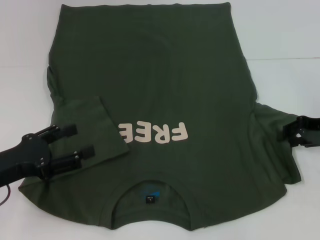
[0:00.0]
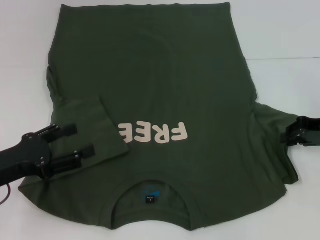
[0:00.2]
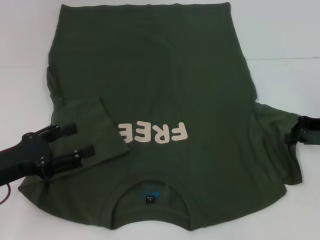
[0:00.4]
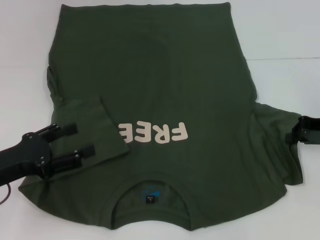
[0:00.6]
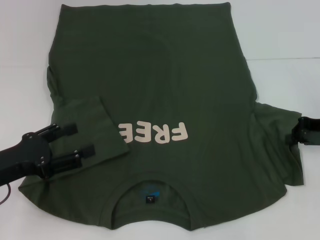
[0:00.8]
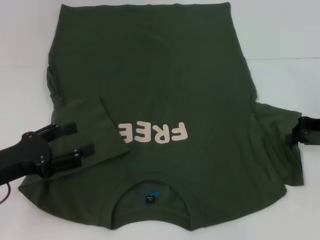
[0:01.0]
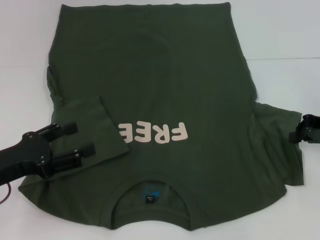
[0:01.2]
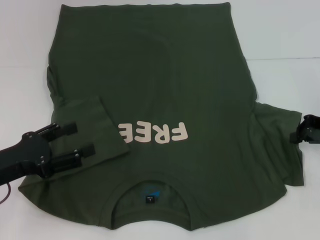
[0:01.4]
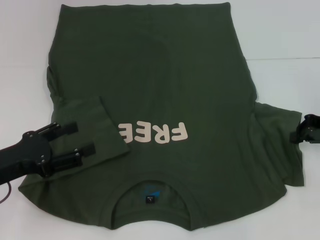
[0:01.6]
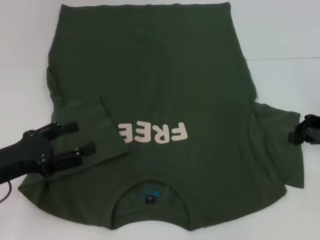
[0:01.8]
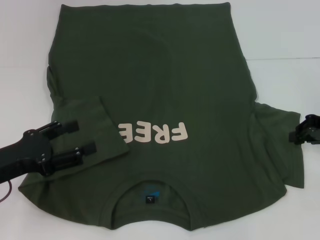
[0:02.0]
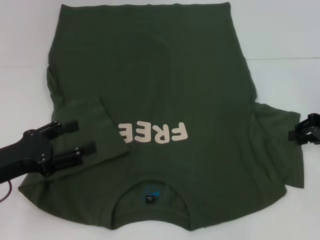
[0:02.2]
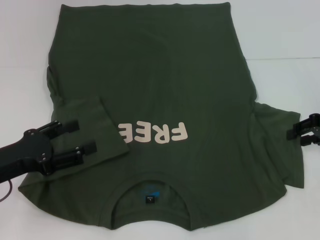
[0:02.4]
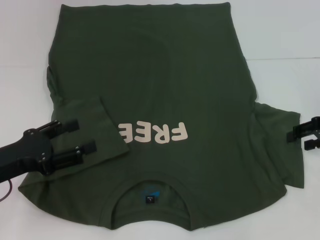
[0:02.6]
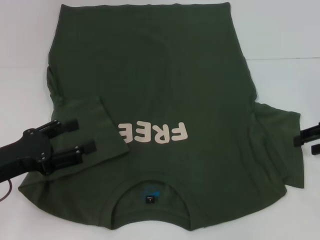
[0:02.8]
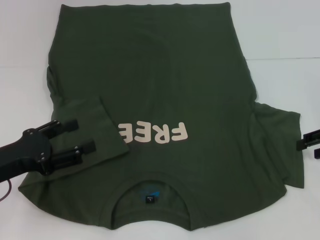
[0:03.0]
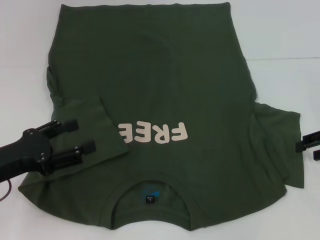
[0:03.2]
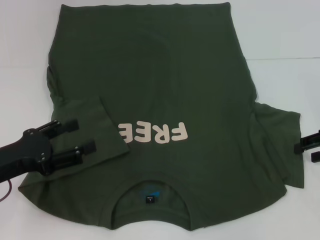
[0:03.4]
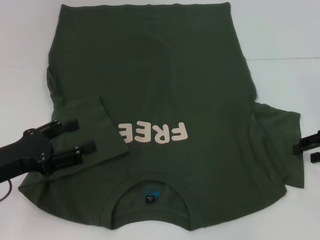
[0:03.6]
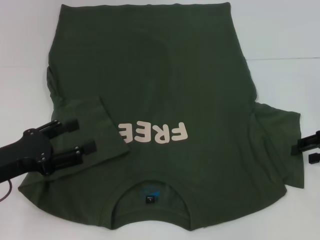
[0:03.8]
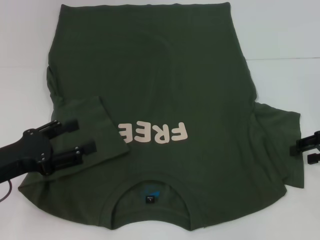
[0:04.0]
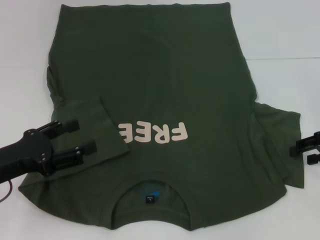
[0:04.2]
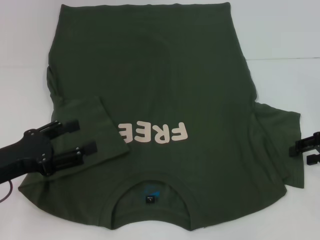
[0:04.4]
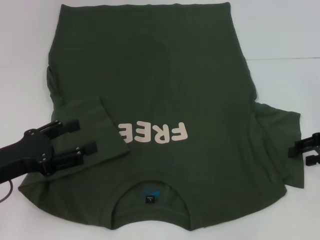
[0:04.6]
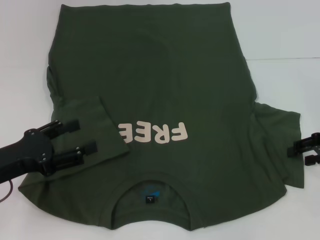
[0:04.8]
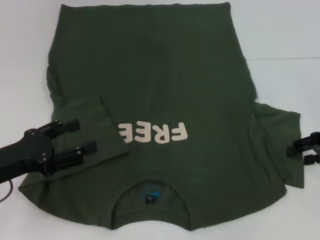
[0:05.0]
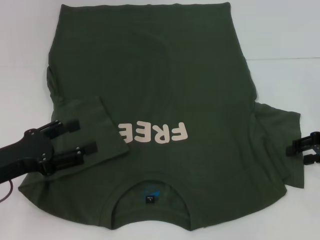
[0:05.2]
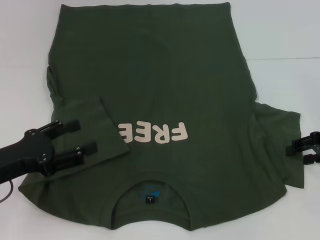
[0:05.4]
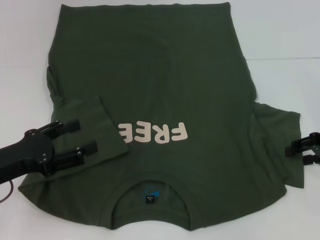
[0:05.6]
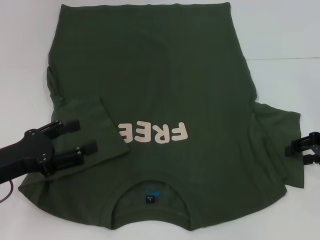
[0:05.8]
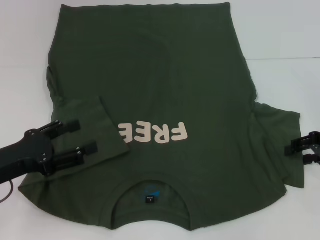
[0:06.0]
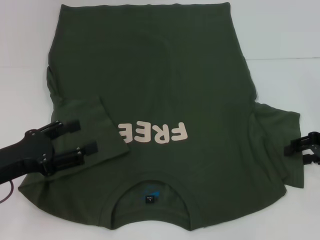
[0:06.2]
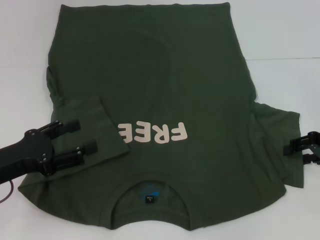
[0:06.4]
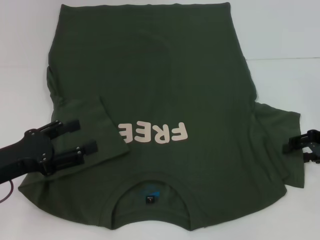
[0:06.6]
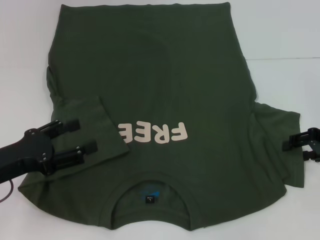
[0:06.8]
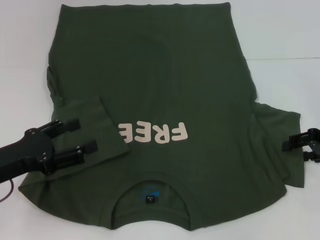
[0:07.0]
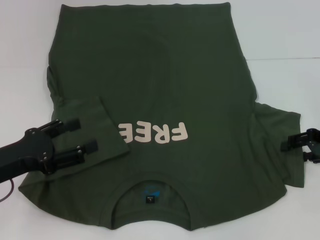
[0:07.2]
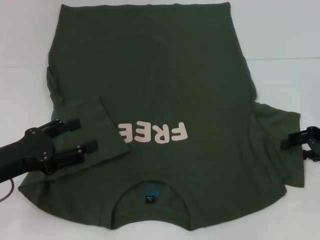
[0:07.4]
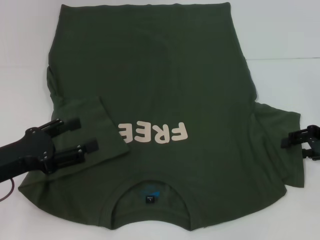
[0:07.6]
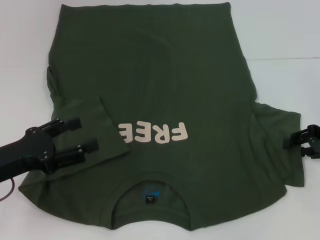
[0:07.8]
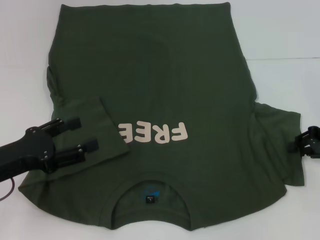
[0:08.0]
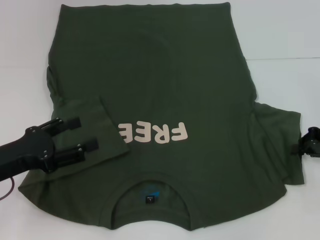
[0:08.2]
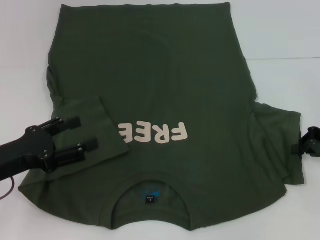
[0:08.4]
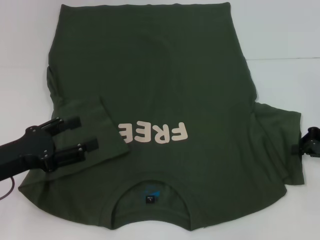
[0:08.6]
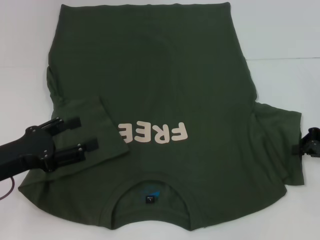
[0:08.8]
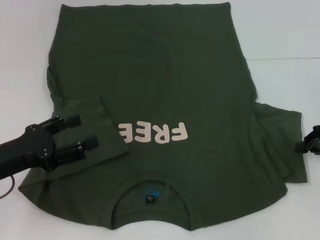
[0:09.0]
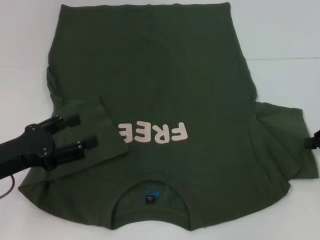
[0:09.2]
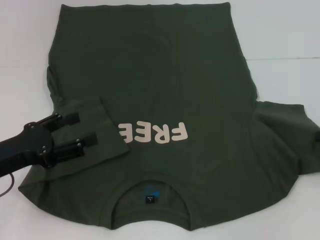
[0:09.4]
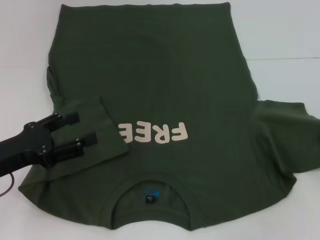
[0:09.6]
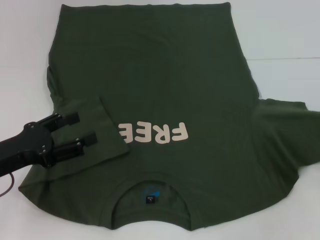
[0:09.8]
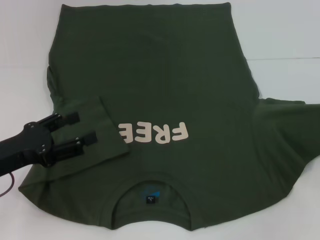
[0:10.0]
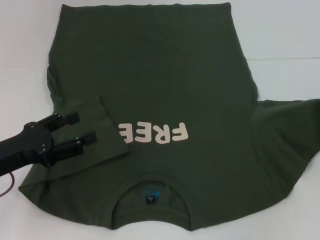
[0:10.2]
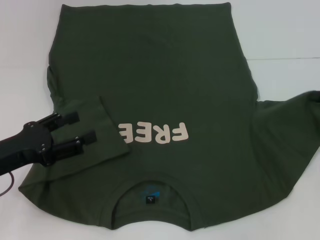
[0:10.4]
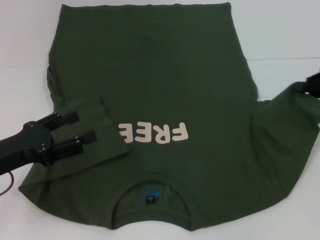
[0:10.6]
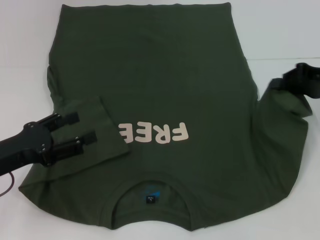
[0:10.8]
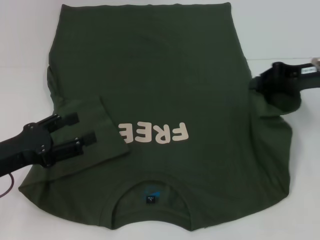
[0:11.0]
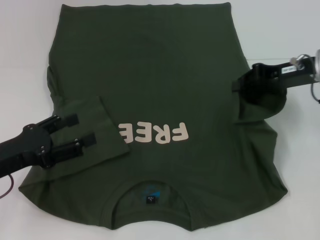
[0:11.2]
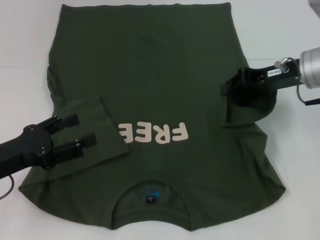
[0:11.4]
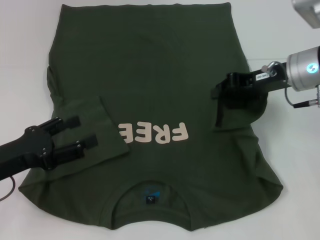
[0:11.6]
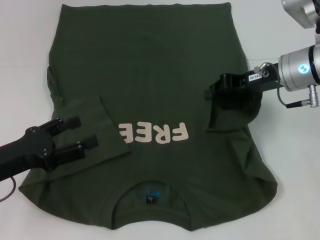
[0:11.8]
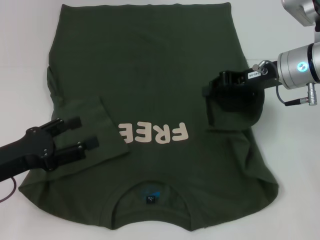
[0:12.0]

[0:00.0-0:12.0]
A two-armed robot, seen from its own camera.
0:00.0 to 0:01.6: The right gripper closes.
0:01.6 to 0:03.0: The right gripper opens its fingers.
0:03.0 to 0:04.4: The grippers stay close to where they were, moving slightly.
0:04.4 to 0:06.0: Both grippers stay about where they are.
0:06.0 to 0:07.6: The grippers make only small movements.
0:07.6 to 0:09.0: The right gripper closes up.
0:09.0 to 0:10.4: There are only small adjustments of the grippers.
0:10.4 to 0:12.0: The right gripper heads to the left, covering about 15 cm.

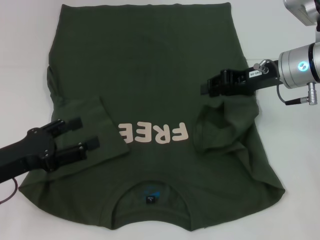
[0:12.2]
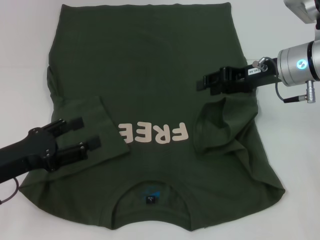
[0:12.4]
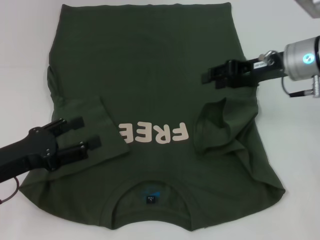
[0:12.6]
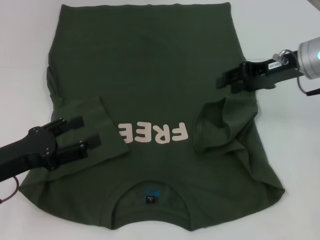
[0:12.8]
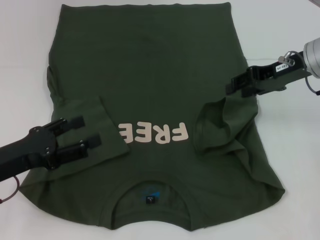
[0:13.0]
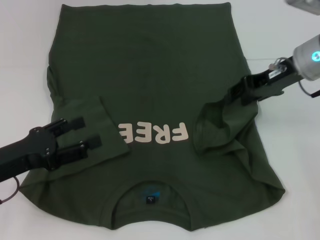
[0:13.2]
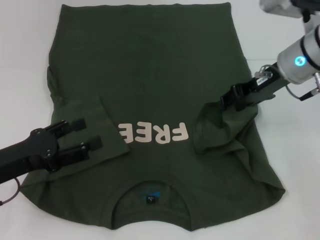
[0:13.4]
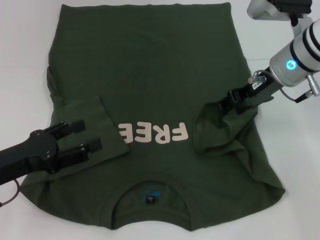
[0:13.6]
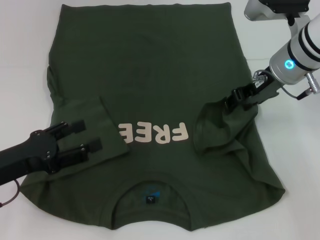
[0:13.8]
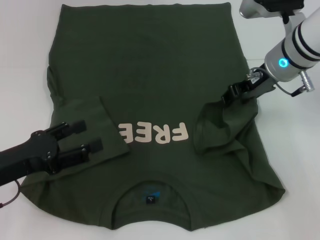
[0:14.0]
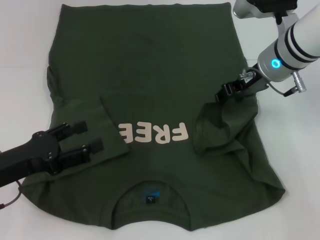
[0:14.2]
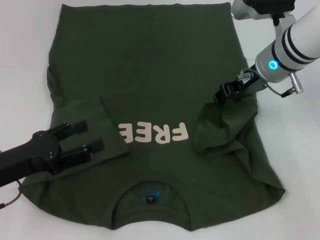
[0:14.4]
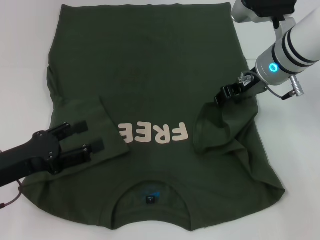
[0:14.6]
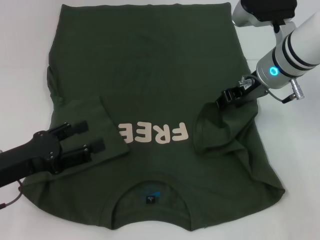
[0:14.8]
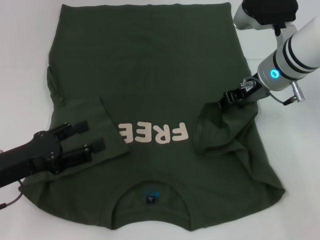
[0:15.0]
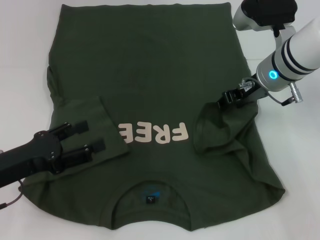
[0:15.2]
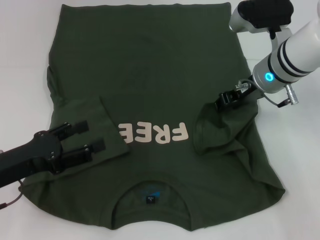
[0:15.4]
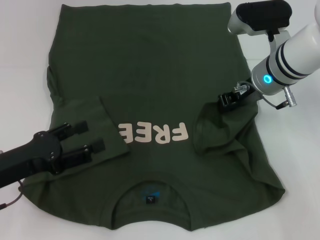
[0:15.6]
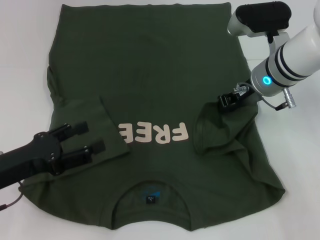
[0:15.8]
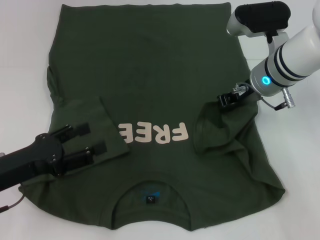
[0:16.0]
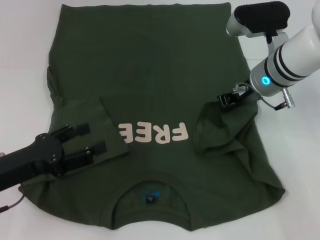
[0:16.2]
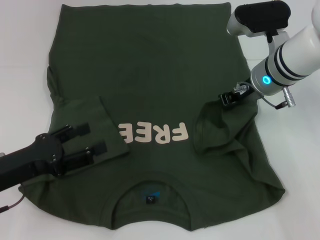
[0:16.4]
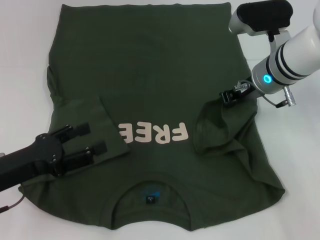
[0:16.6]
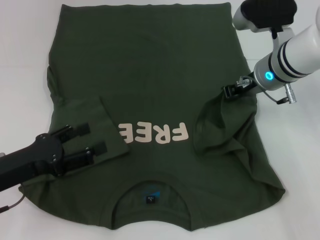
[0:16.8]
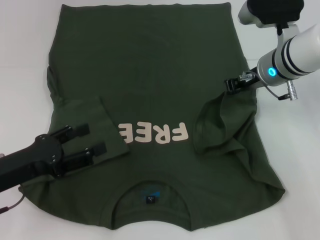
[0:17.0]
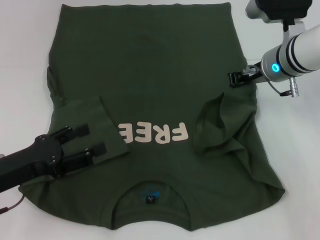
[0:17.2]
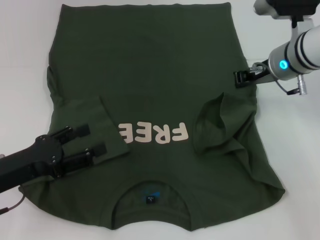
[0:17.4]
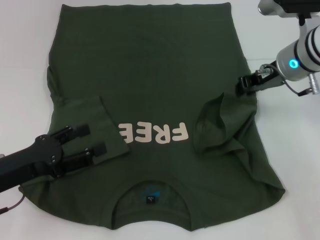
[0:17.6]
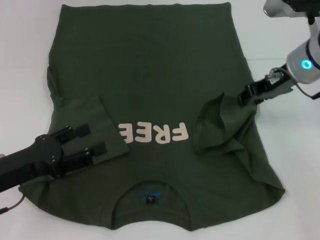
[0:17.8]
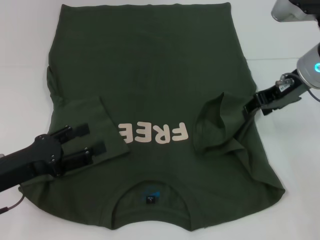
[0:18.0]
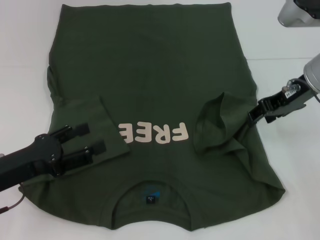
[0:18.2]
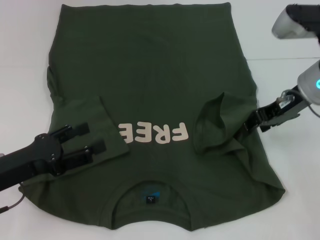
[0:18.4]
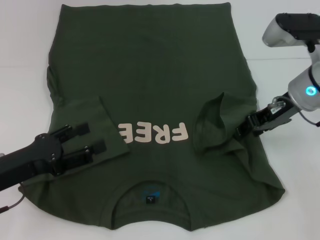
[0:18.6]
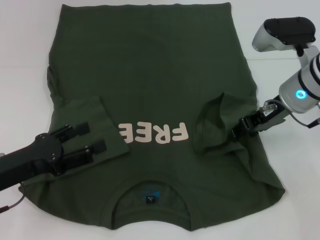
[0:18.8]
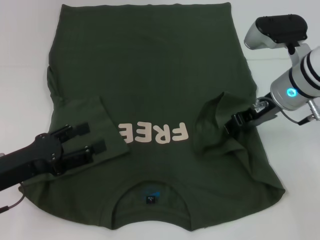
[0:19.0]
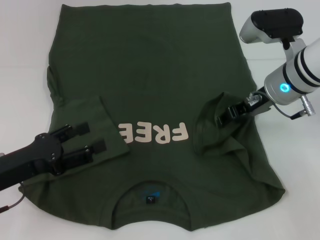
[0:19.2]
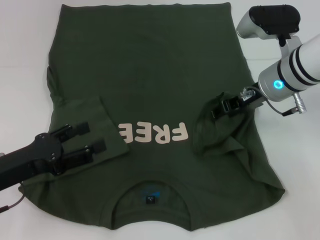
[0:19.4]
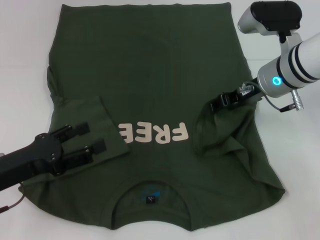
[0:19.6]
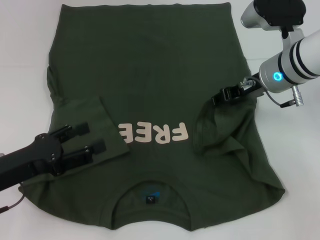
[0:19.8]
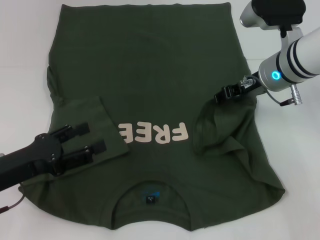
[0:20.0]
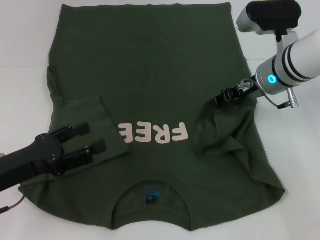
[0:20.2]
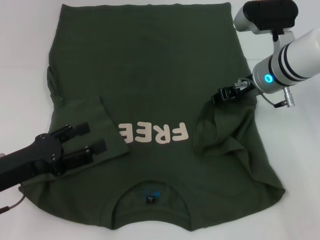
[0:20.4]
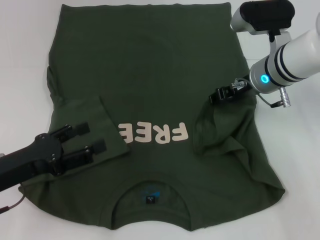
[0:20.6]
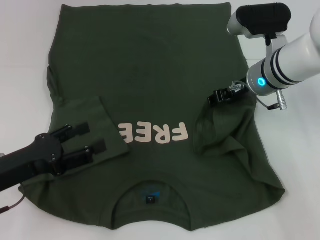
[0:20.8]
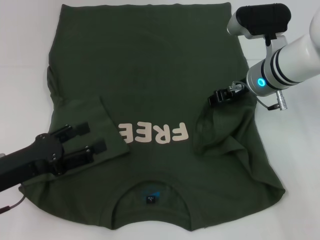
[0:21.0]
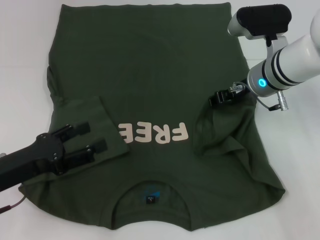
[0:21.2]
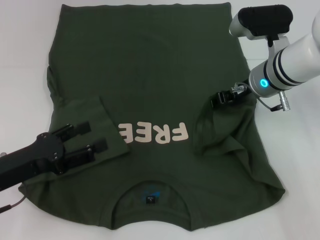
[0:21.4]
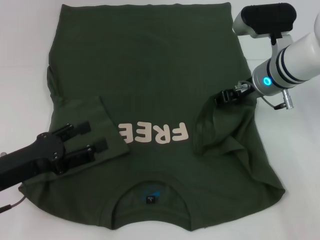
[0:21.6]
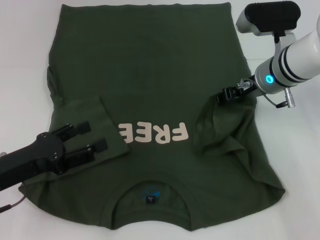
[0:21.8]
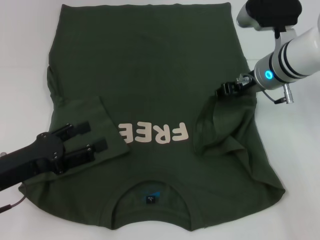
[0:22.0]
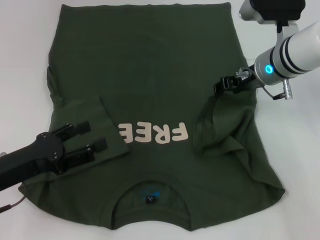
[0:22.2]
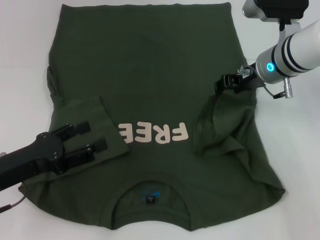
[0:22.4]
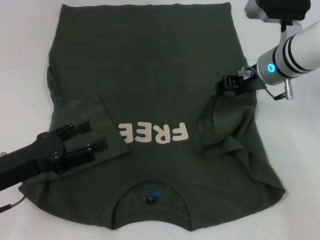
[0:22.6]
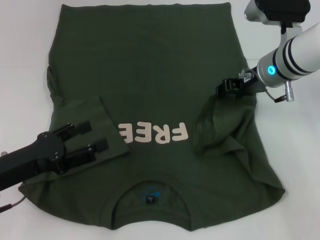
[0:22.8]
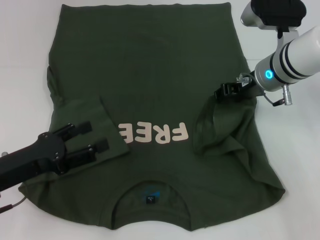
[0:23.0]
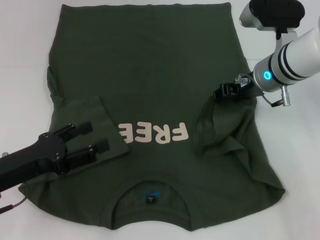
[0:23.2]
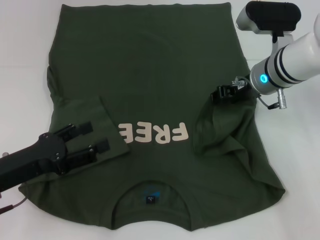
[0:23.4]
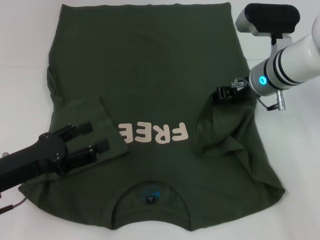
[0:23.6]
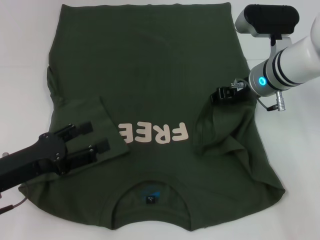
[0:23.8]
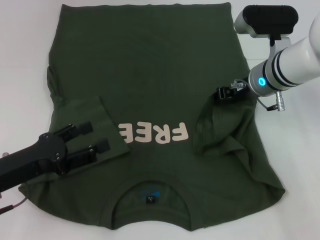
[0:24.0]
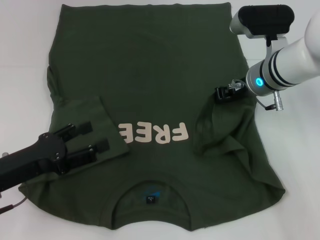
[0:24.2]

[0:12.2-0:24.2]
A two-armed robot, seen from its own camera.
0:12.2 to 0:13.8: The right gripper opens its fingers.
0:13.8 to 0:15.2: There are only small adjustments of the grippers.
0:15.2 to 0:16.6: The right gripper closes.
0:16.6 to 0:18.2: The right gripper shifts approximately 5 cm to the right, and opens up.
0:18.2 to 0:19.8: The right gripper ends up some 5 cm from where it was.
0:19.8 to 0:24.2: There are only small adjustments of the grippers.
